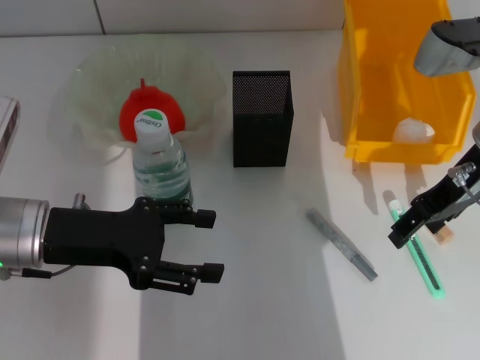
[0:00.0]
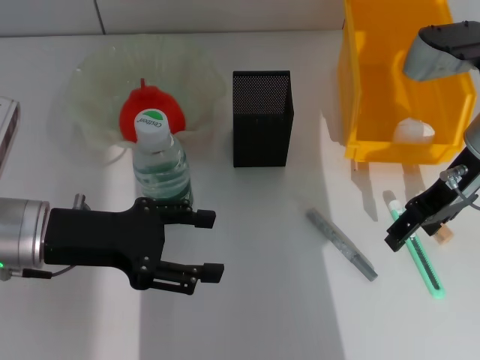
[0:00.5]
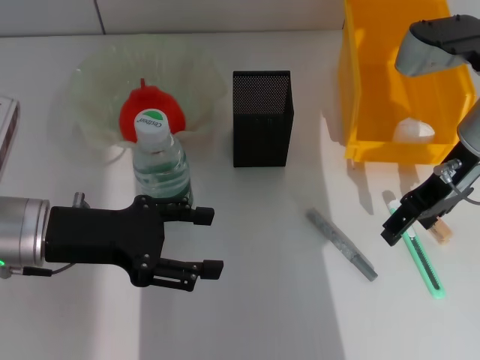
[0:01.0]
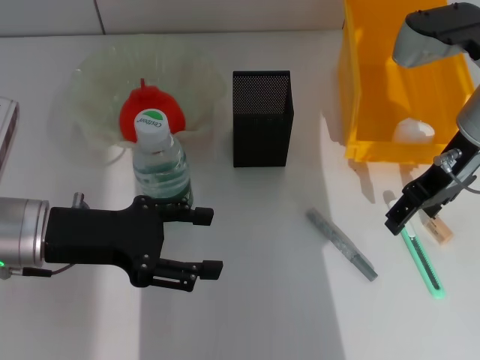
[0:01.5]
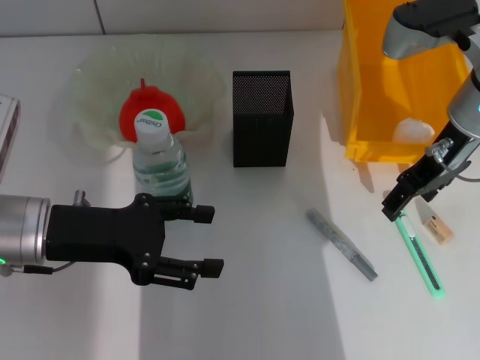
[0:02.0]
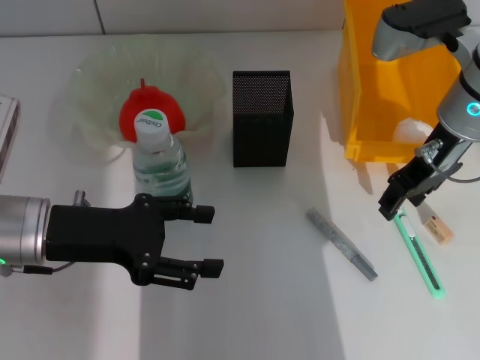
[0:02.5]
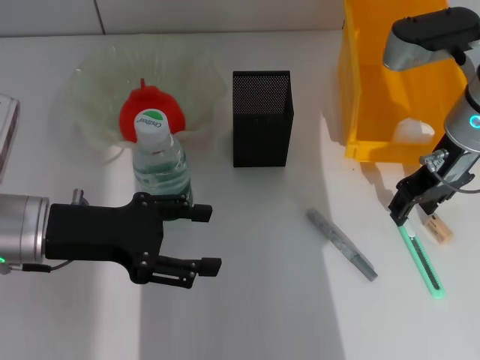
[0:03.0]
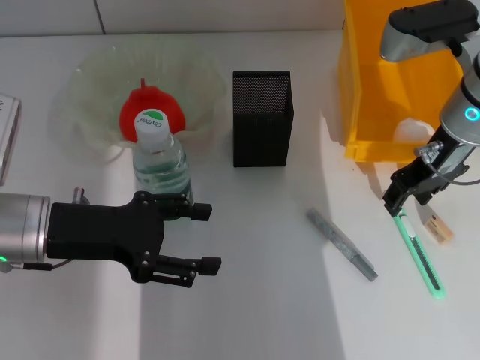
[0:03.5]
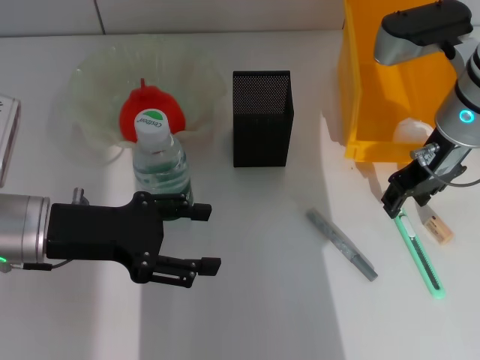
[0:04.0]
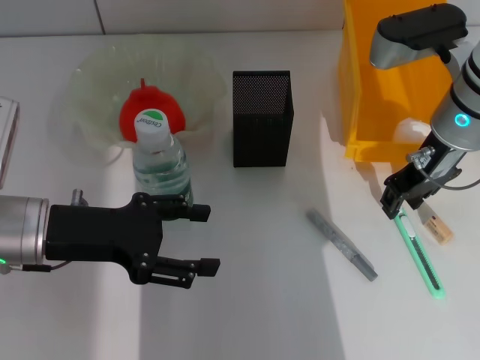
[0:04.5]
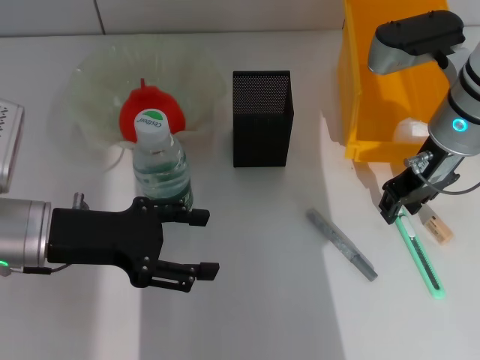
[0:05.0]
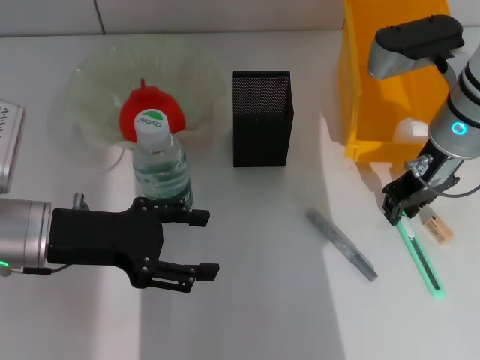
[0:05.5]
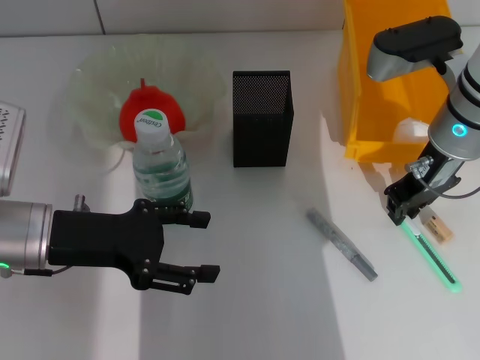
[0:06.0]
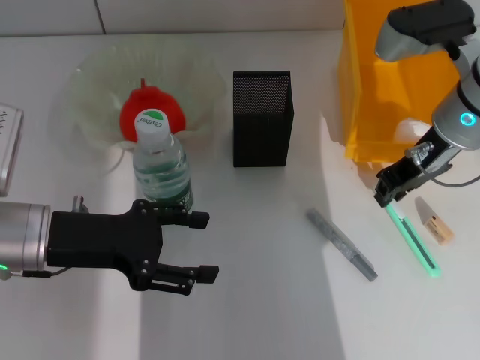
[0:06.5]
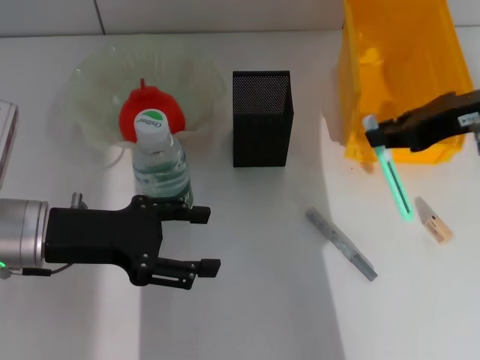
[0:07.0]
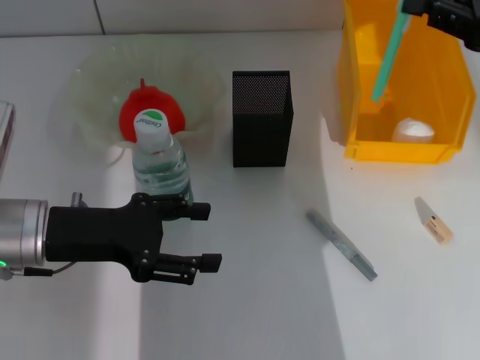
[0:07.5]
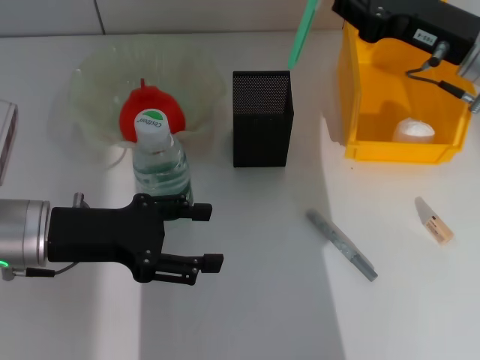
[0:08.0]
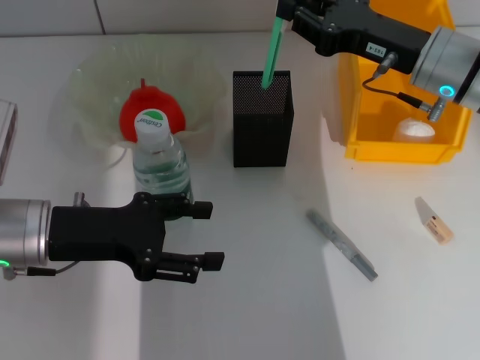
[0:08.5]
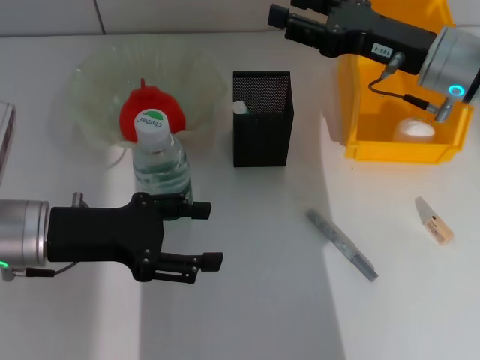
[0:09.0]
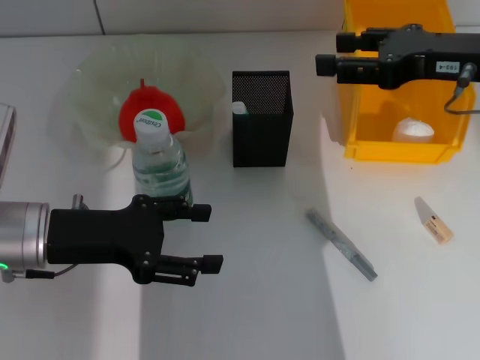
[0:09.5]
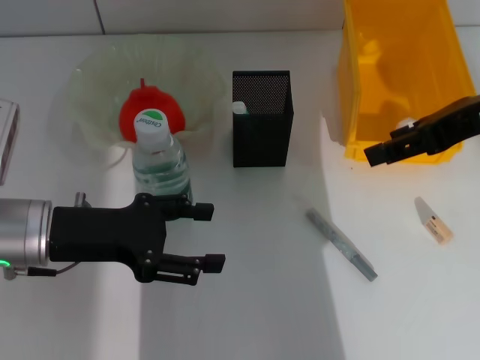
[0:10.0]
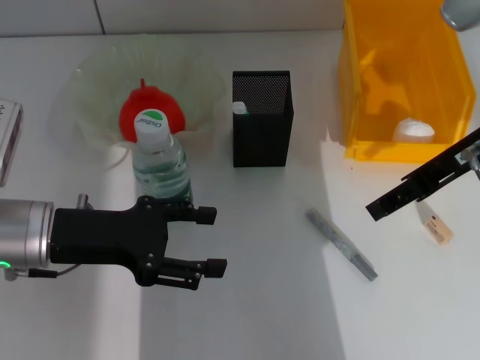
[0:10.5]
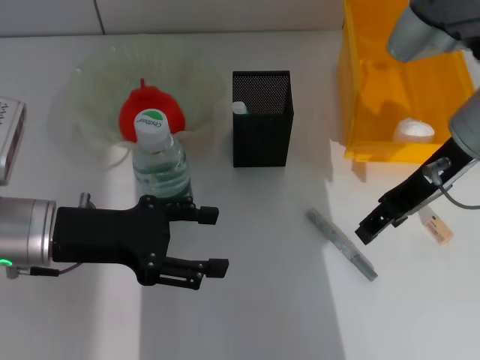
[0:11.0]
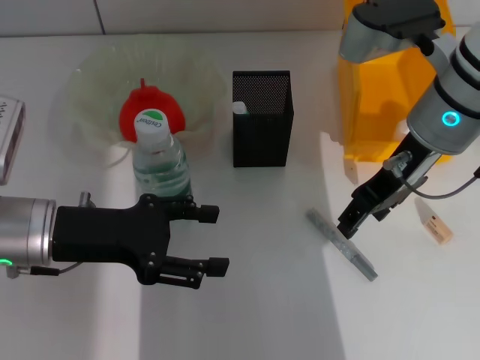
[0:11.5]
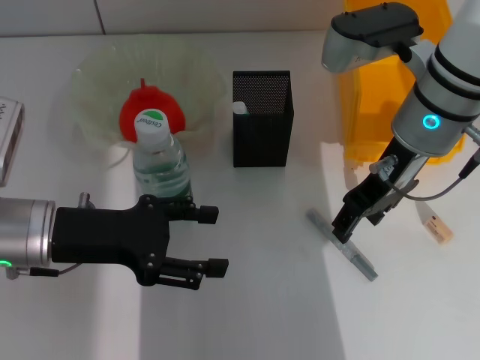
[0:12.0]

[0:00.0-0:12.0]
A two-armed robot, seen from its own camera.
Step, 0:00.0 to 0:05.5: Grab the blue utility knife with the right hand.
Step, 0:06.0 to 0:08.5: Place the blue utility knife into the pen holder with the right hand.
0:00.0 to 0:04.0: The grippers make only small movements.
0:04.0 to 0:06.0: The right gripper closes up.
0:08.0 to 0:10.0: The right gripper travels upward and backward by roughly 10 cm, and opens its fingers.
0:10.0 to 0:12.0: The right gripper goes some 10 cm to the left and downward.

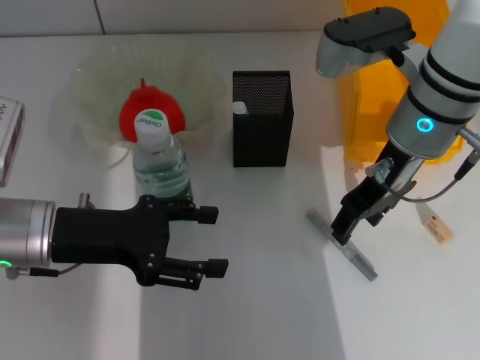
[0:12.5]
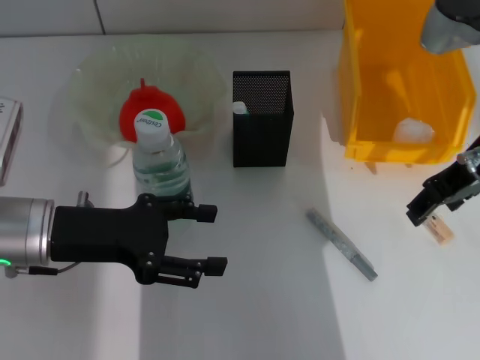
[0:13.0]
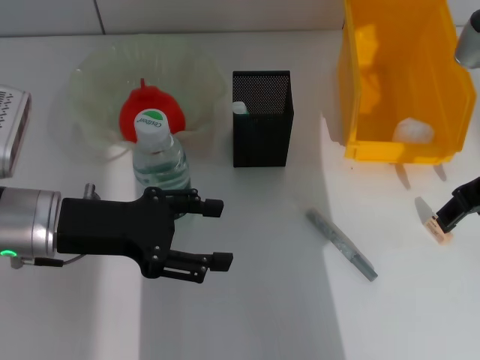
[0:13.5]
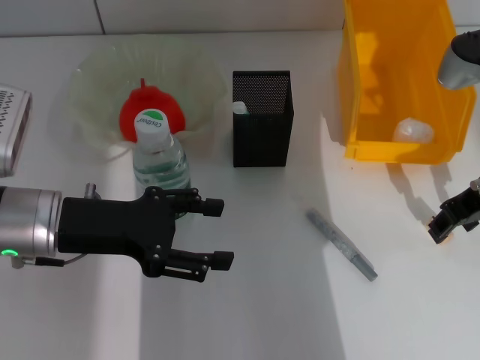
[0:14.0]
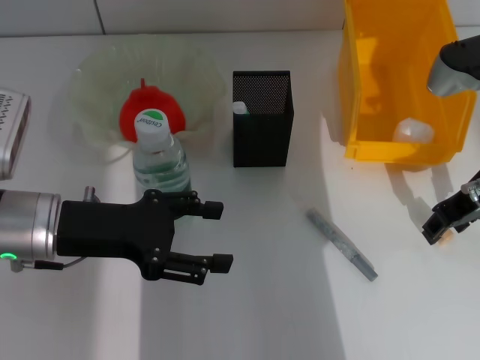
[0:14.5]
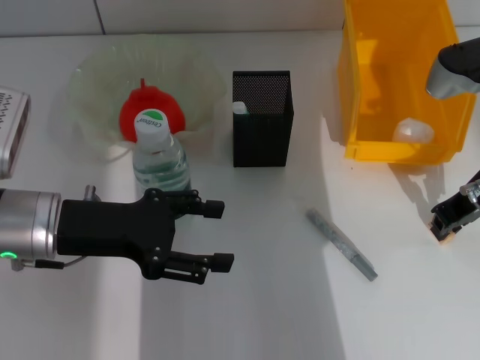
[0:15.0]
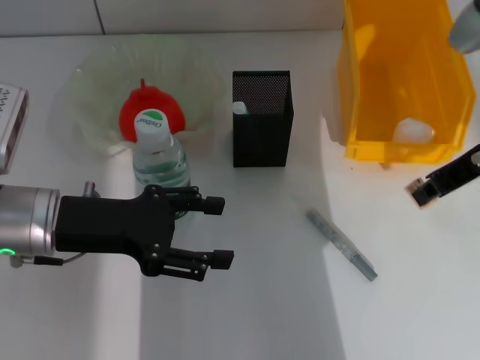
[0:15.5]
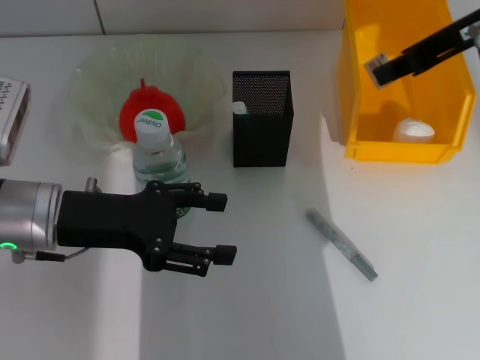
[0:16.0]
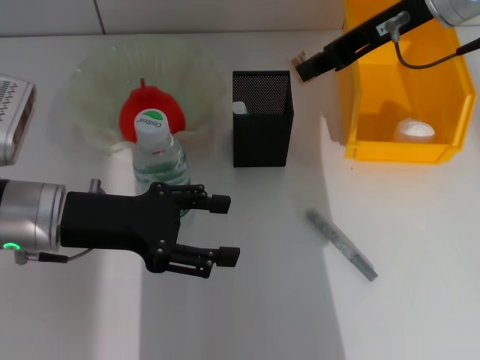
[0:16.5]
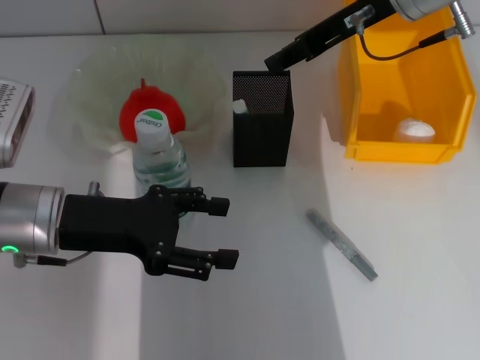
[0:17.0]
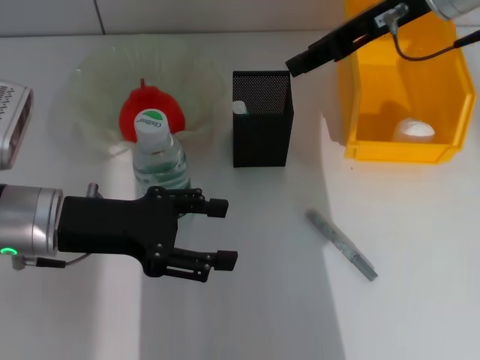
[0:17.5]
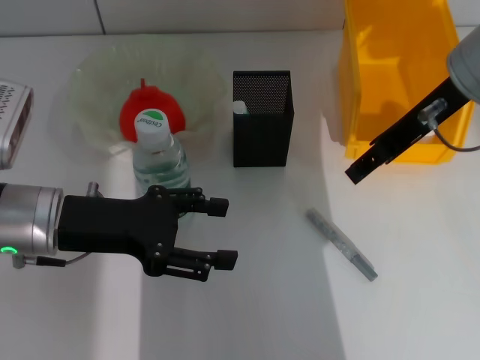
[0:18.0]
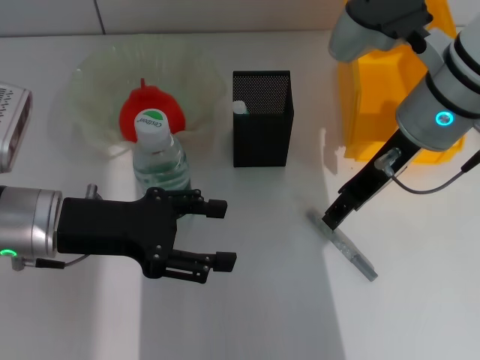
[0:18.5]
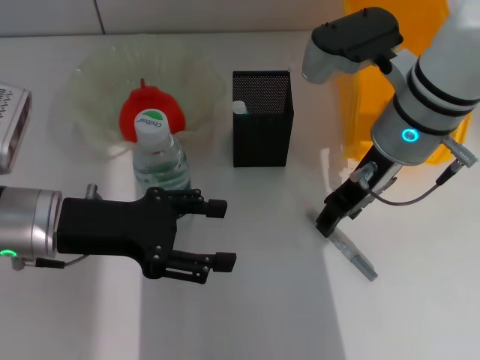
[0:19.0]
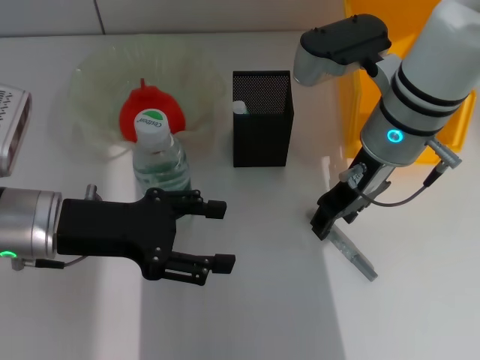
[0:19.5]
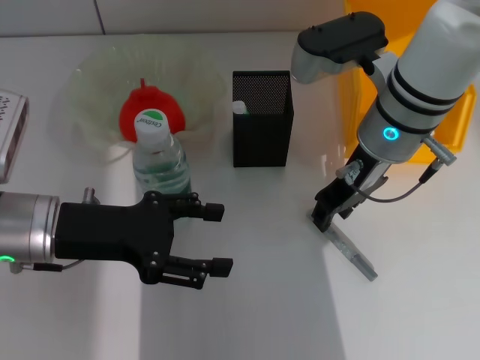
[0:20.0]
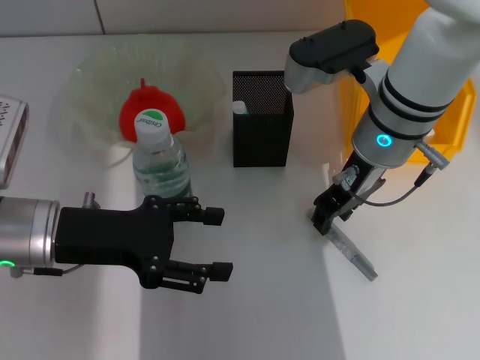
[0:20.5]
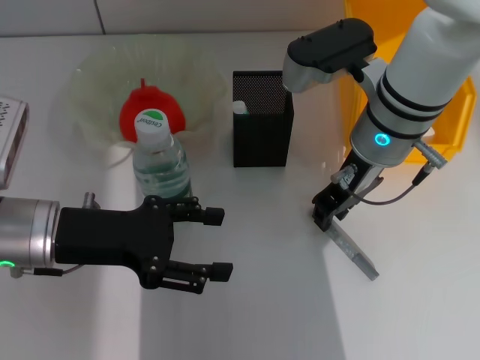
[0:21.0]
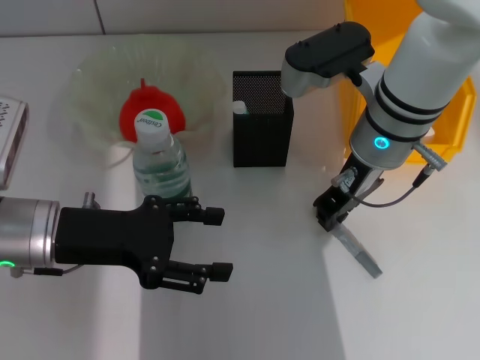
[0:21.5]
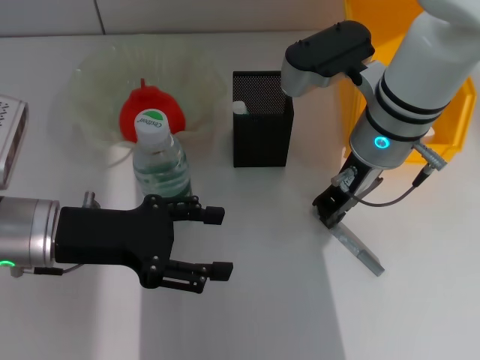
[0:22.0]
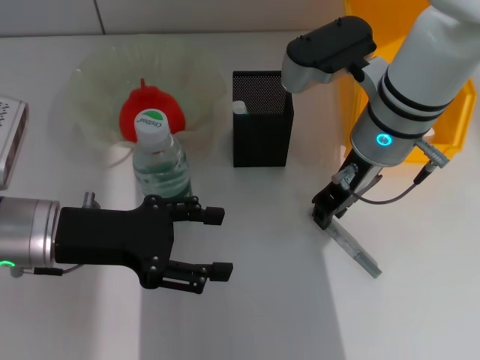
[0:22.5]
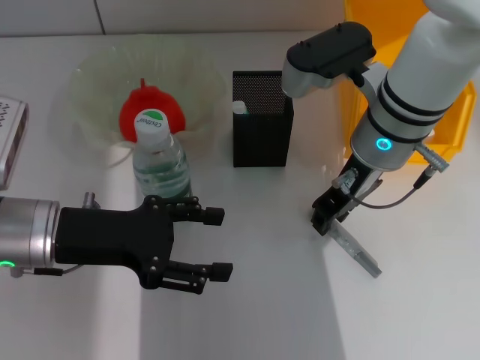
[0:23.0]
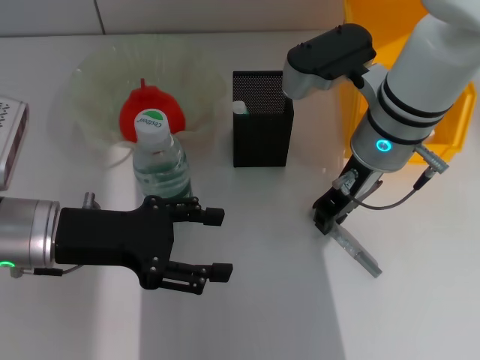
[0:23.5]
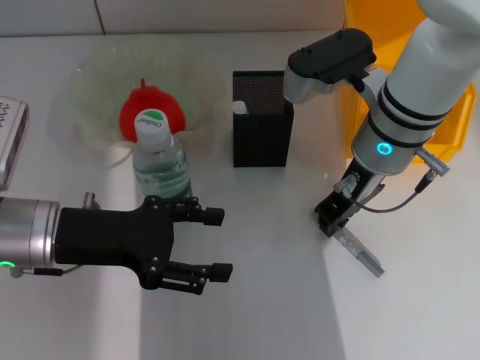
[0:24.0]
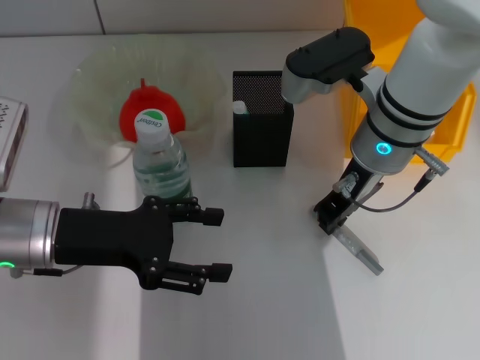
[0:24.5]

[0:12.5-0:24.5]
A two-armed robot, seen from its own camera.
Step, 0:12.5 to 0:14.5: Grab the eraser with the right hand.
Step, 0:15.0 to 0:16.5: Put the eraser into the pen holder with the right hand.
Step, 0:17.0 to 0:24.0: Grab the gray glue with the right hand.
0:12.5 to 0:14.5: The right gripper goes about 10 cm to the right.
0:14.5 to 0:16.5: The right gripper travels upward, forward and to the left by some 15 cm, and closes its fingers.
0:16.5 to 0:18.5: The right gripper is displaced downward and backward by approximately 10 cm, and opens its fingers.
0:18.5 to 0:20.5: The right gripper moves about 5 cm.
0:20.5 to 0:22.5: The right gripper closes.
0:22.5 to 0:24.5: The two grippers keep their place.

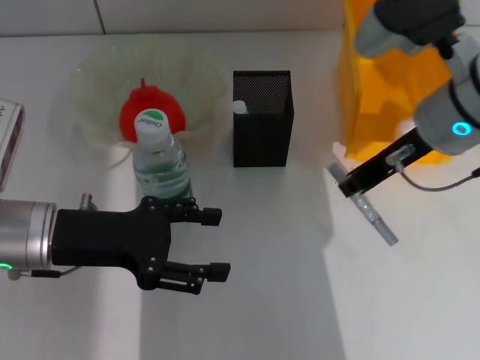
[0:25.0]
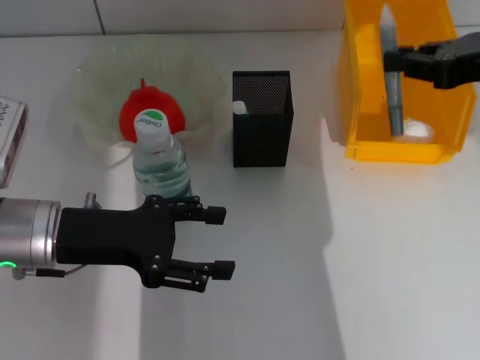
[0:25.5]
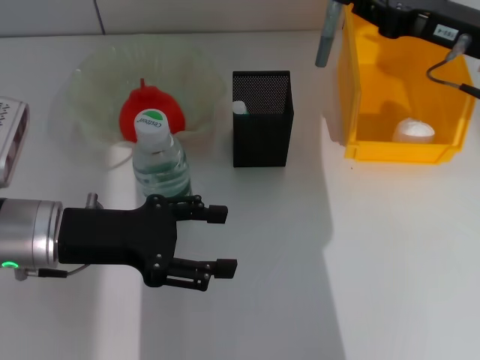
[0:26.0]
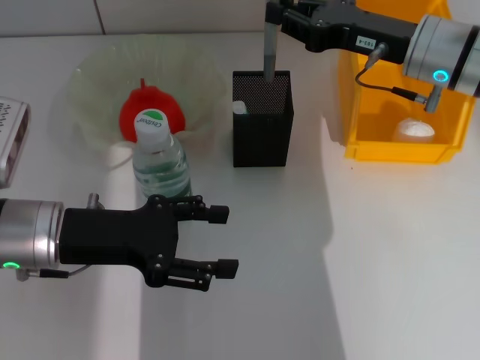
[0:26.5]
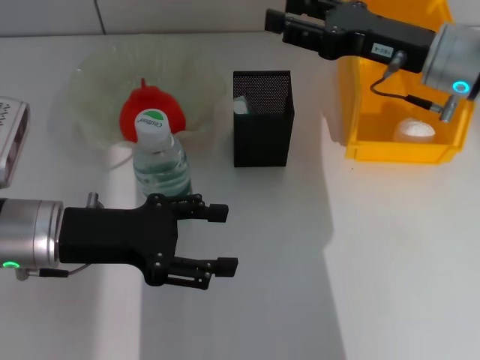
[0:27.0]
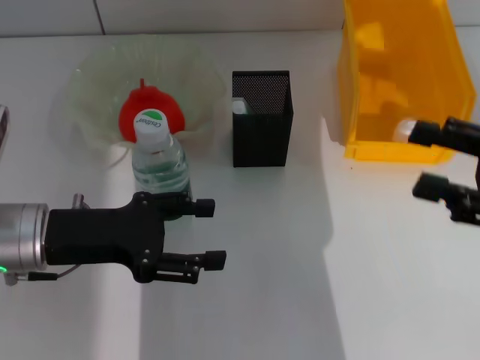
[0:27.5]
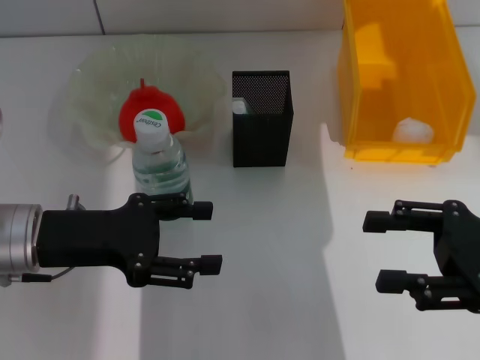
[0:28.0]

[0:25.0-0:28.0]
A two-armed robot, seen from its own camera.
Step, 0:25.0 to 0:26.5: Place the gray glue into the pen holder with the right hand.
0:25.0 to 0:26.5: The right gripper is displaced forward by approximately 5 cm, and travels to the right and back again, roughly 10 cm each way.
0:26.5 to 0:28.0: The right gripper shifts roughly 20 cm backward and to the right, and opens.
